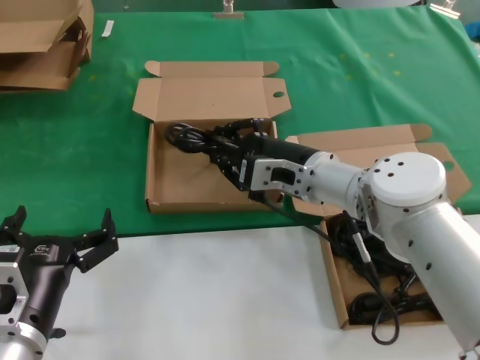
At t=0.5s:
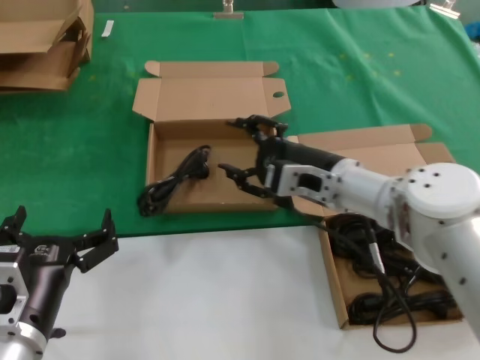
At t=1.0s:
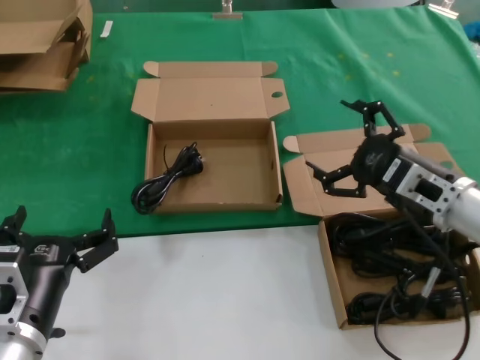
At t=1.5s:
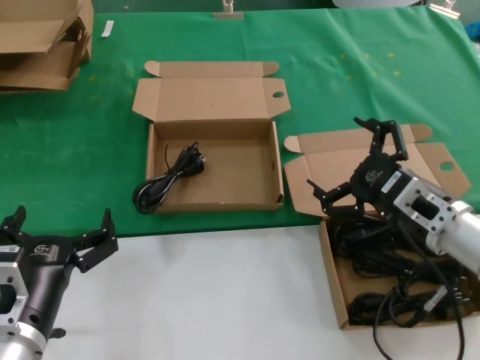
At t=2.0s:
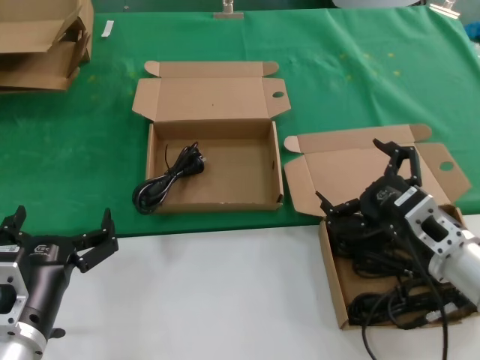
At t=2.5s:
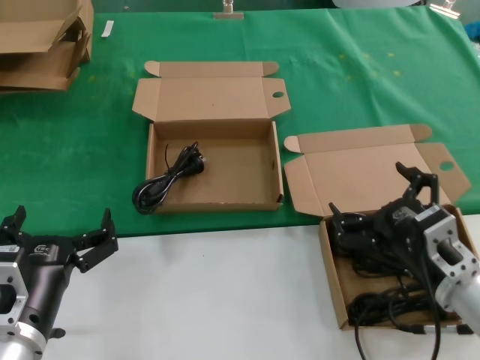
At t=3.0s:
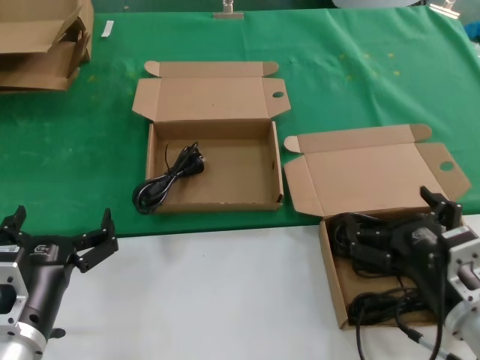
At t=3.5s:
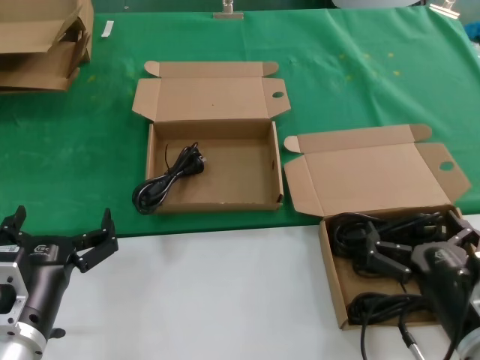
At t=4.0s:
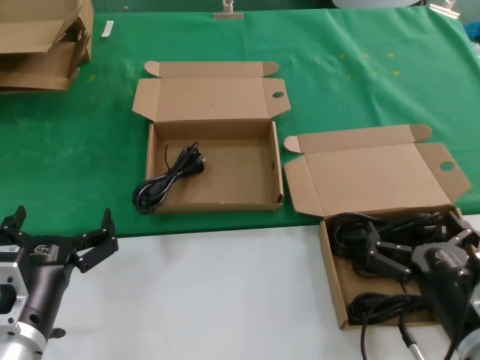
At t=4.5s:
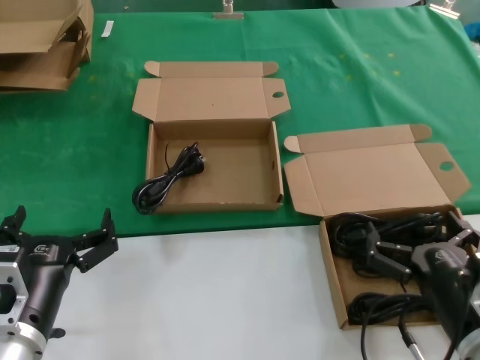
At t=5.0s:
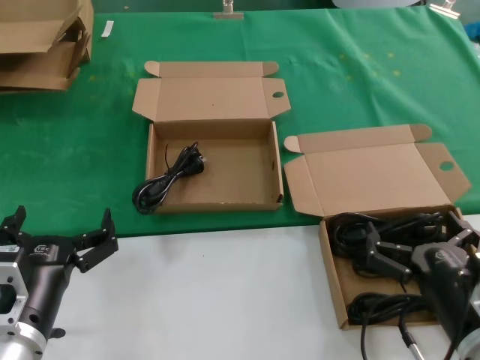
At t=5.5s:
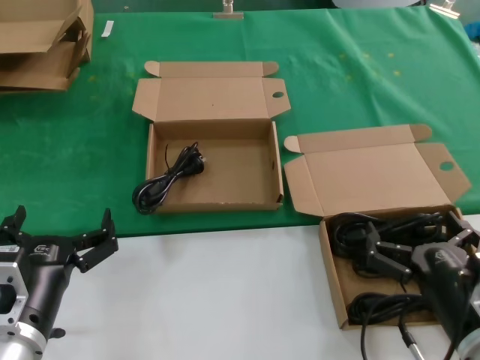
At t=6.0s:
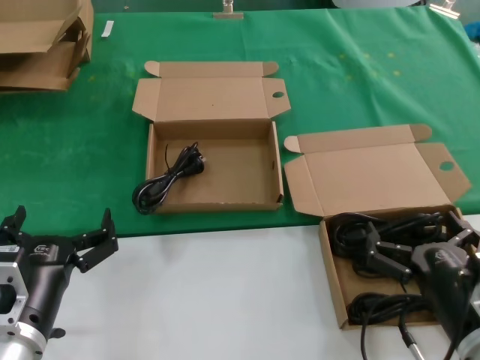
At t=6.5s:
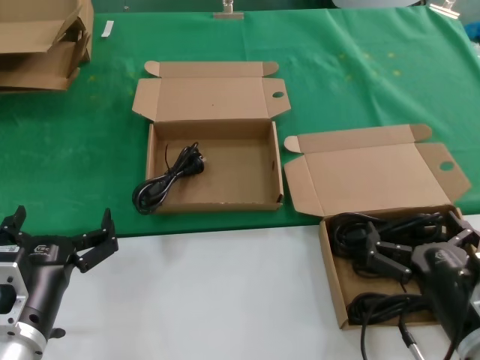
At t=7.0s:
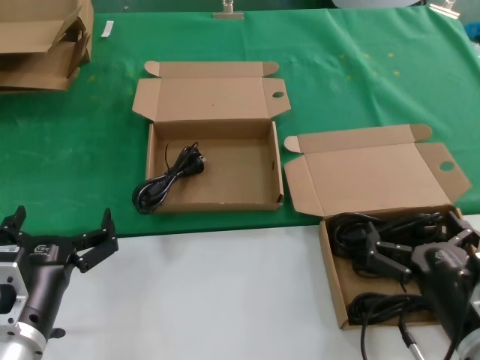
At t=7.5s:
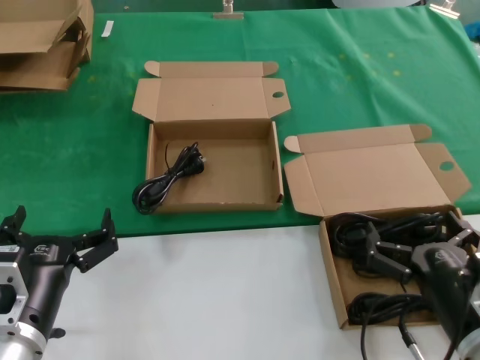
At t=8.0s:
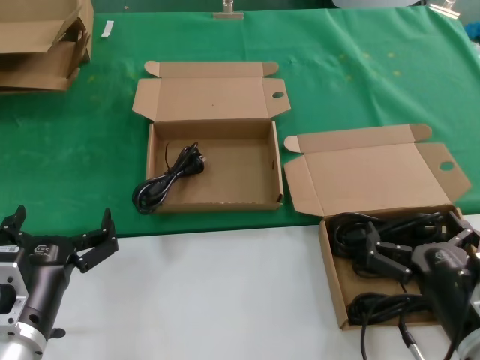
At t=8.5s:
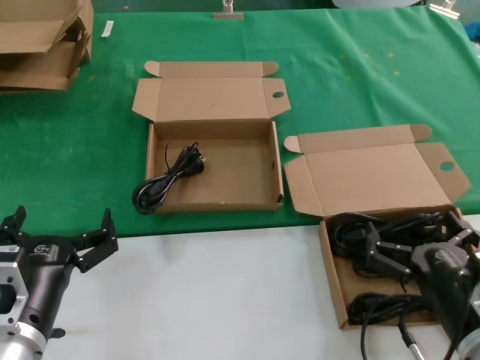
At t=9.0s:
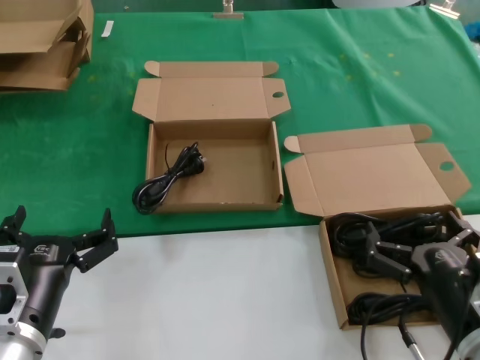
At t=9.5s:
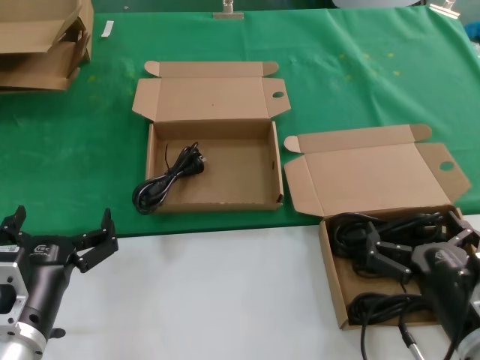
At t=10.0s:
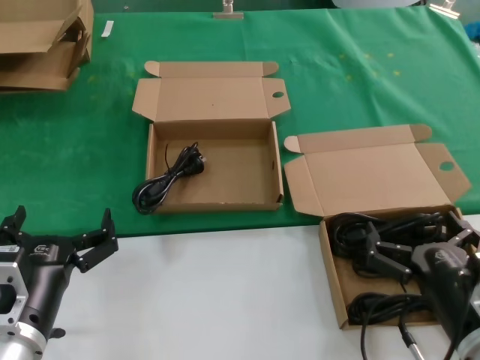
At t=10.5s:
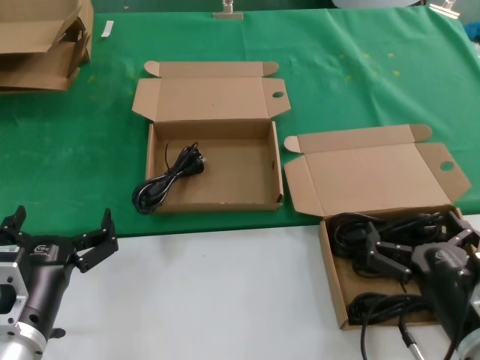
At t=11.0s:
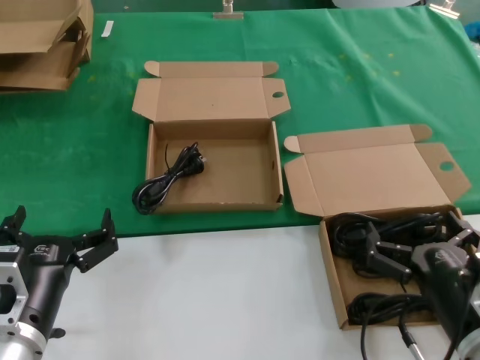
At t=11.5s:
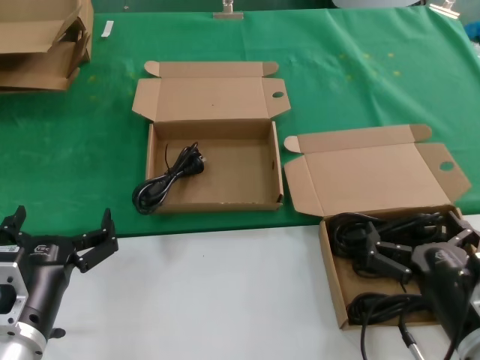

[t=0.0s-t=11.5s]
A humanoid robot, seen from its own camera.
Task of the whole recording: take the parts from the box containing them and put them into an empty box.
t=0.0s to t=2.0s: The right hand shifts about 20 cm to the right, backward and downward.
t=2.0s to t=4.0s: The right hand heads backward, covering approximately 10 cm.
t=4.0s to t=11.5s: Both hands stay put.

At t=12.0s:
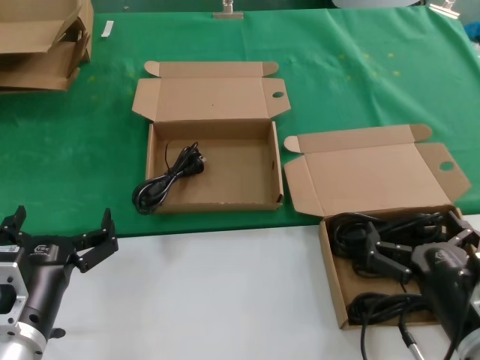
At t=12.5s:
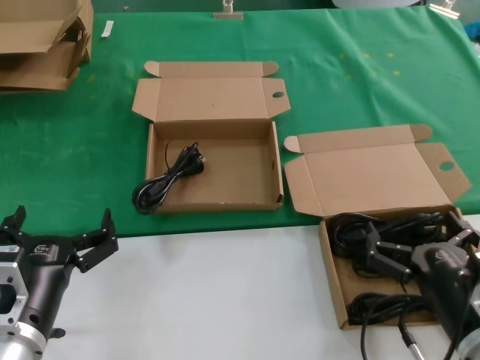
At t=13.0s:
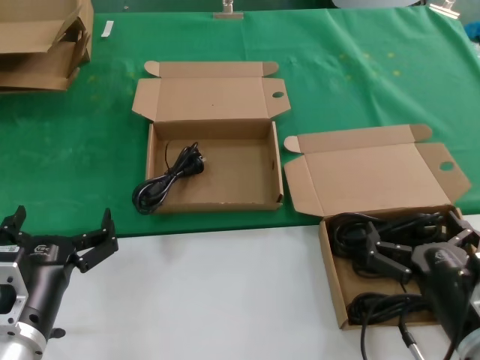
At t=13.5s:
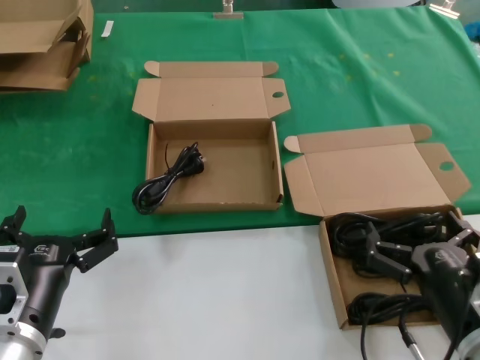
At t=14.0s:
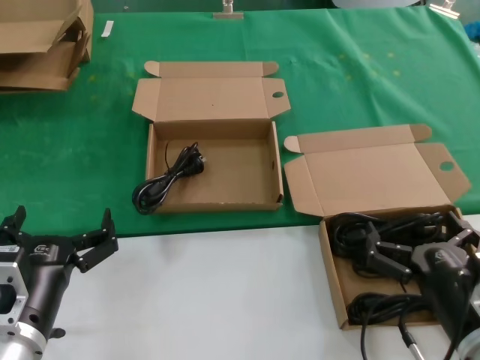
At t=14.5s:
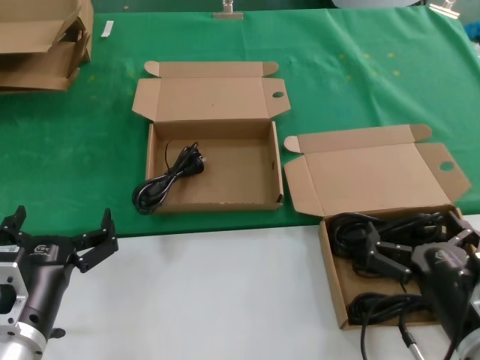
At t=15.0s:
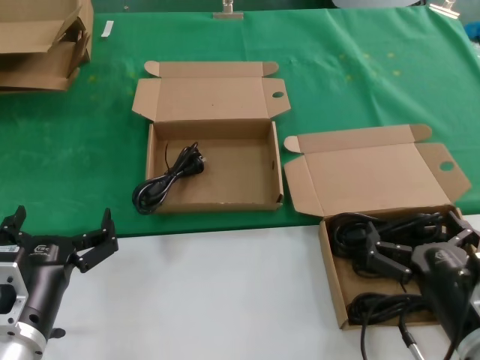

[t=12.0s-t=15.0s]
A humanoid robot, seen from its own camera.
Task of the whole recording: take the parts from the box containing them and put them into an empty box.
t=12.0s to t=15.0s: Neither hand changes place.

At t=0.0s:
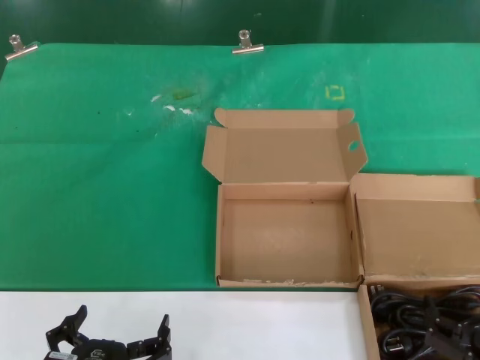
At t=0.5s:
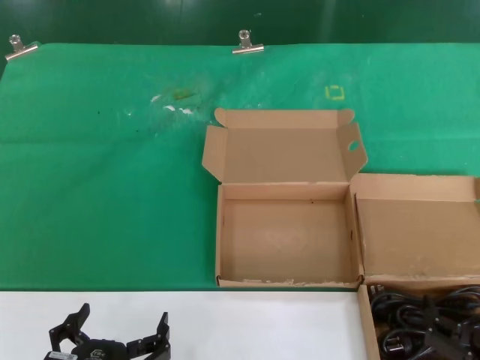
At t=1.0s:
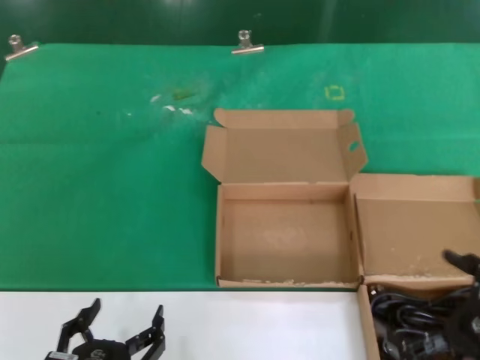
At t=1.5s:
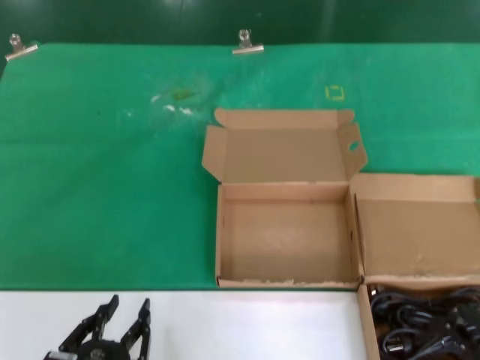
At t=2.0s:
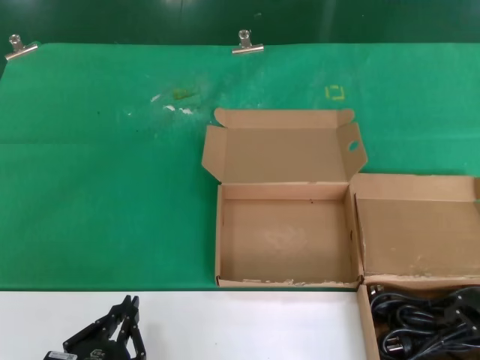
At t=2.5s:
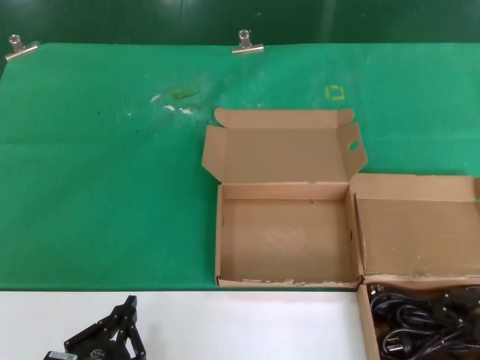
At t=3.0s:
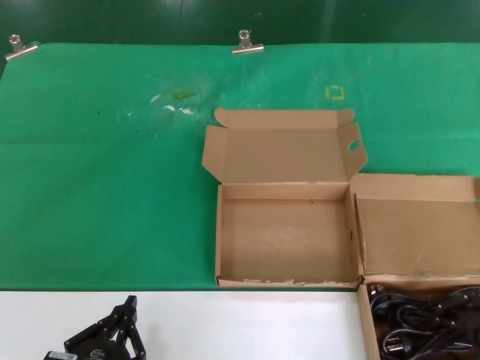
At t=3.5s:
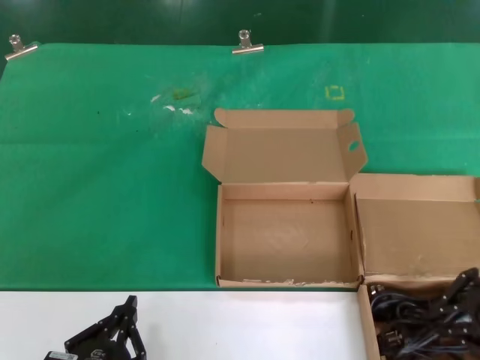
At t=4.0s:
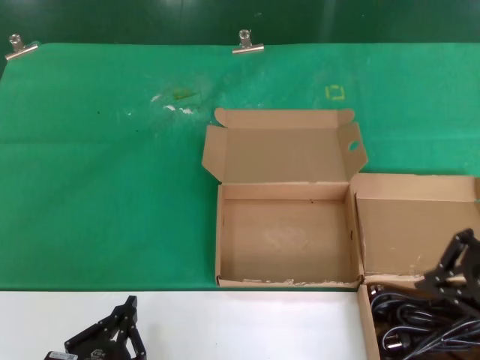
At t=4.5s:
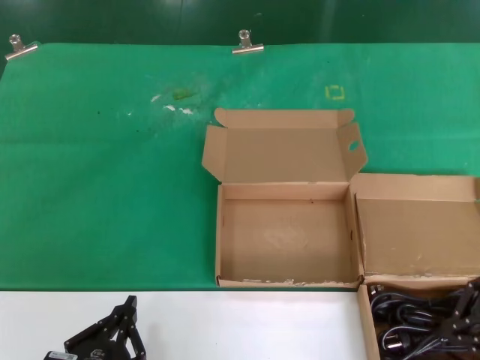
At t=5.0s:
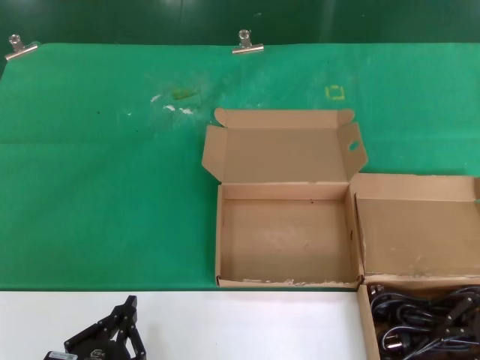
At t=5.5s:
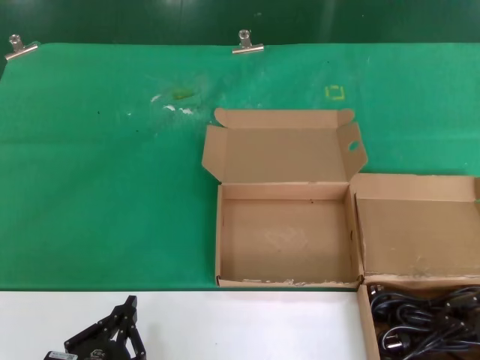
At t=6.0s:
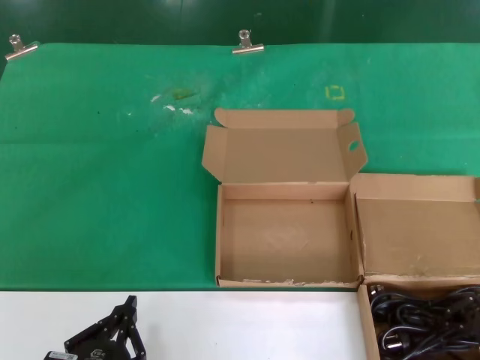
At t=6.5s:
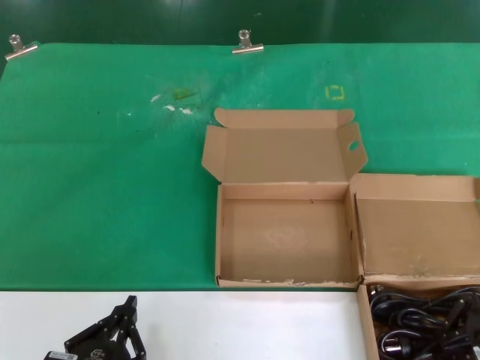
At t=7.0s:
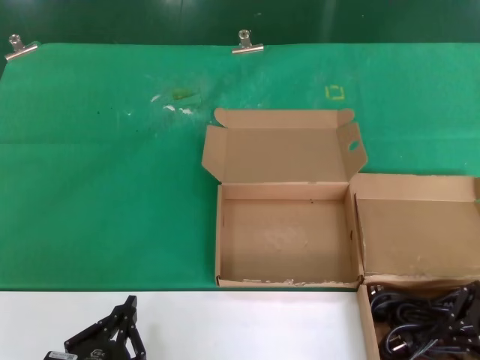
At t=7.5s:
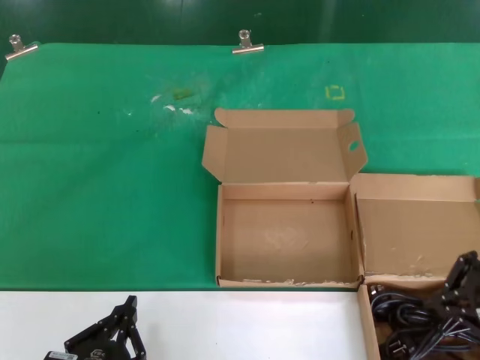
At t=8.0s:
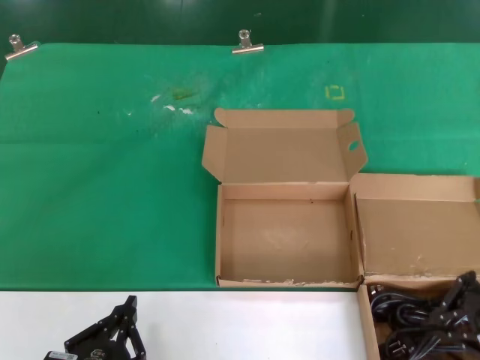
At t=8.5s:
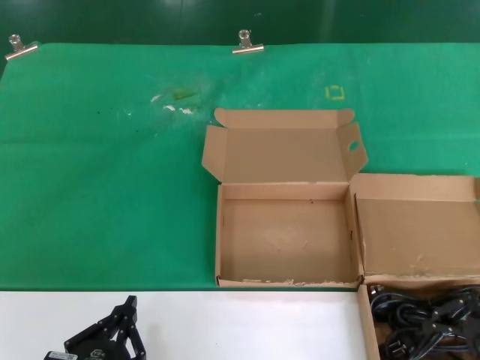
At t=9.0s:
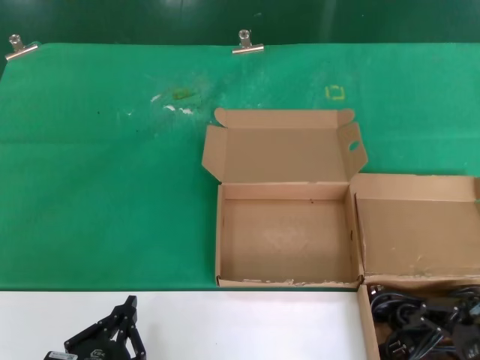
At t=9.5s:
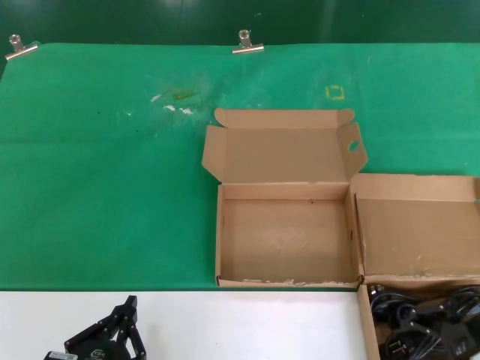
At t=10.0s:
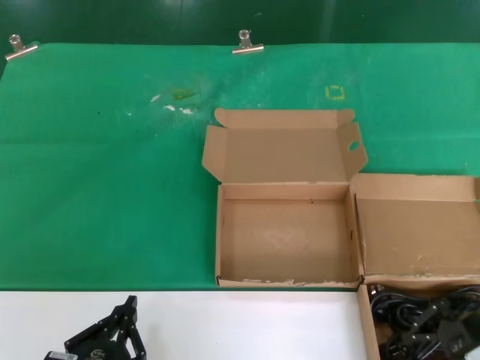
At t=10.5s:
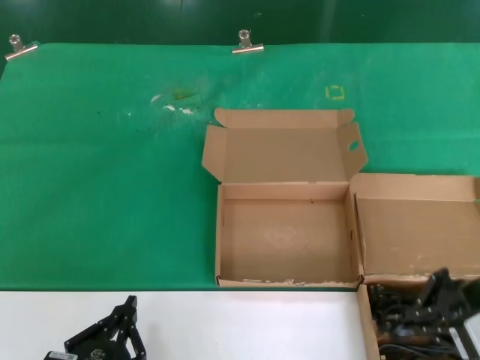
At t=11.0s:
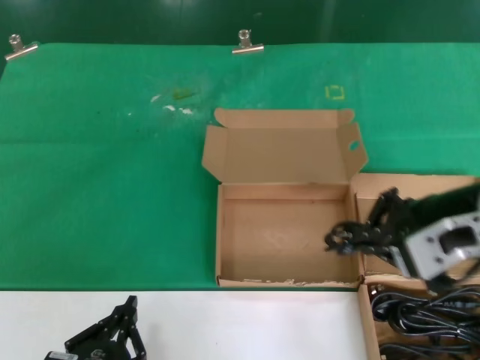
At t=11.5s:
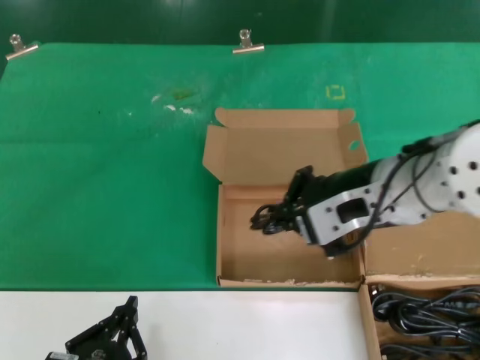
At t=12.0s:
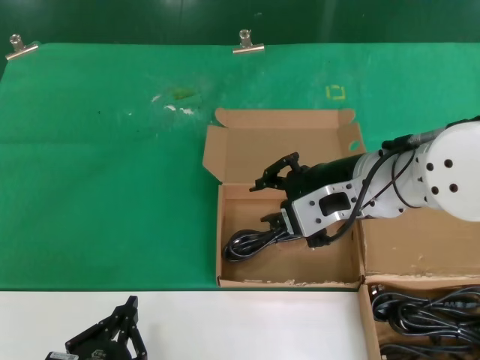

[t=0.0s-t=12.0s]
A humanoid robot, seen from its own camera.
Task of the whole recording: take the parts from the box containing them and put them into an empty box.
Step, t=0.0s to t=10.0s: Grasp the data cable.
Step, t=10.5s to t=11.5s: Place the data cable in the another box.
t=0.0s to t=2.0s: The right hand heads upward, covering approximately 20 cm.
t=2.0s to t=4.0s: The right hand heads upward, covering approximately 5 cm.
t=4.0s to t=6.0s: The right hand goes approximately 10 cm downward.
t=6.0s to t=8.0s: The hands make only small movements.
t=8.0s to t=10.0s: The right hand shifts by roughly 5 cm.
t=10.0s to t=12.0s: The right hand heads to the left, forward and upward, covering approximately 20 cm.
